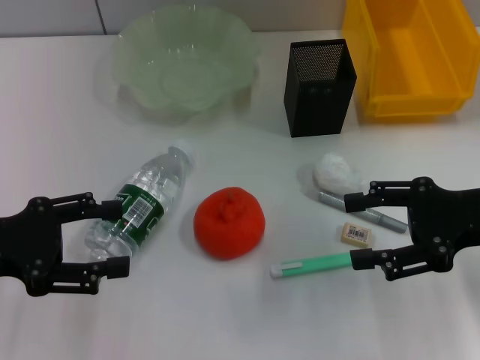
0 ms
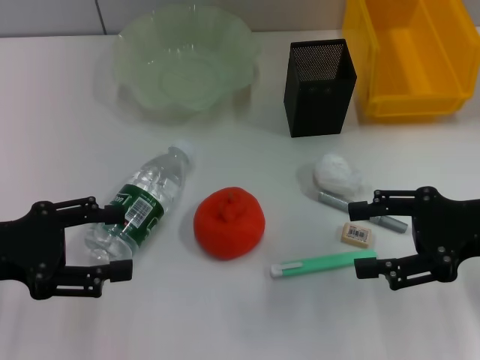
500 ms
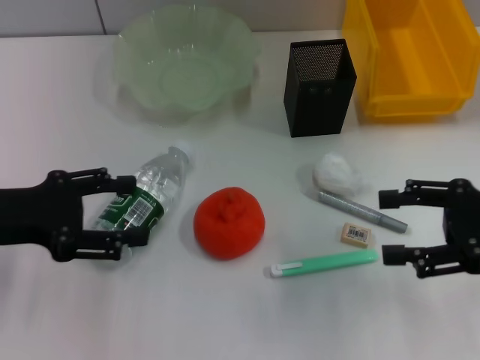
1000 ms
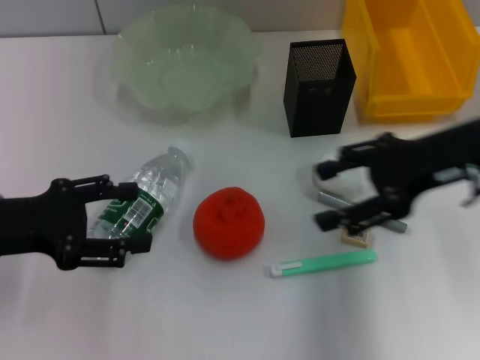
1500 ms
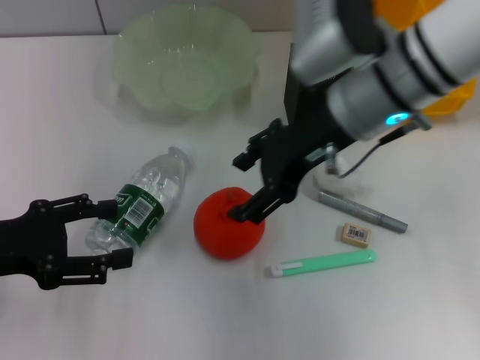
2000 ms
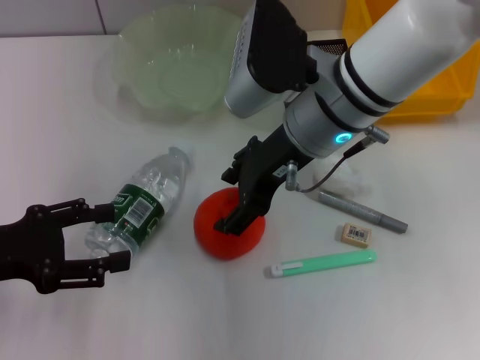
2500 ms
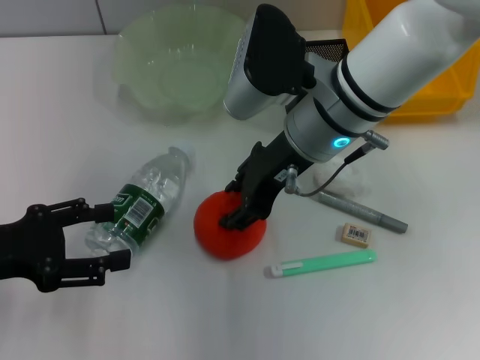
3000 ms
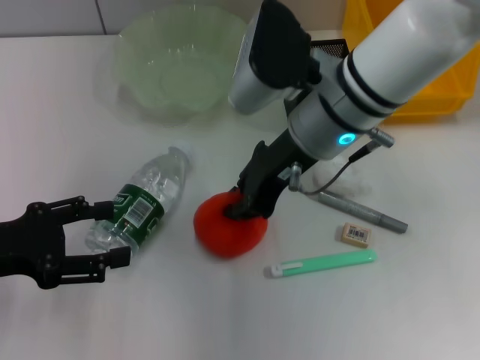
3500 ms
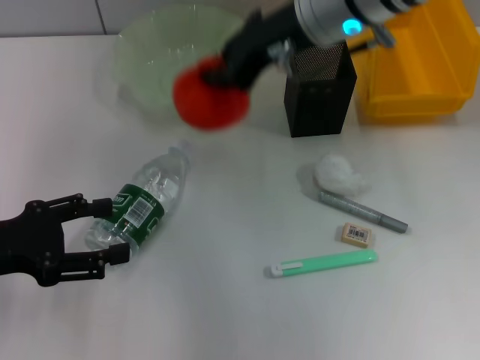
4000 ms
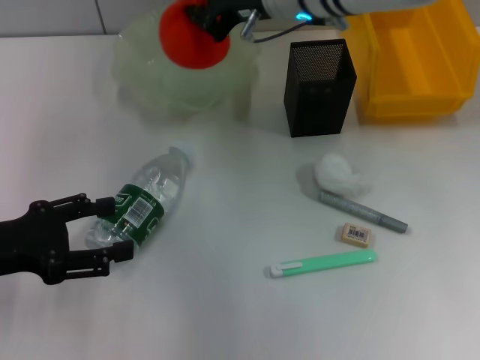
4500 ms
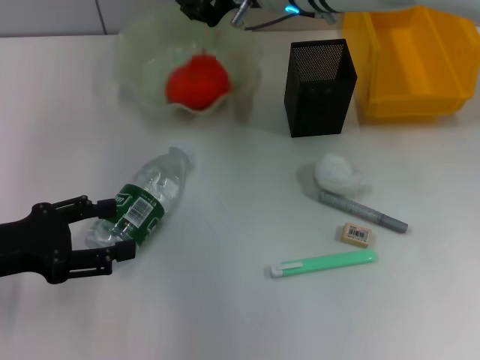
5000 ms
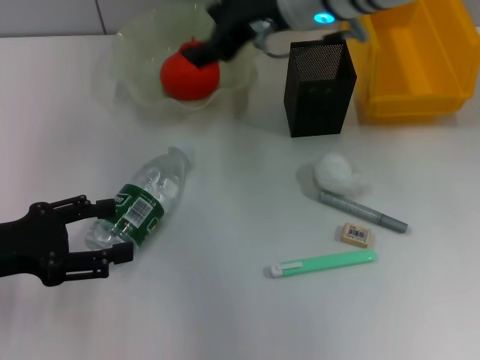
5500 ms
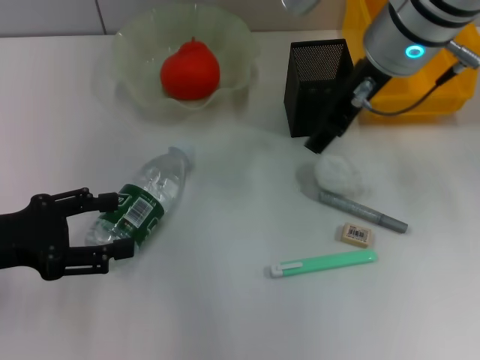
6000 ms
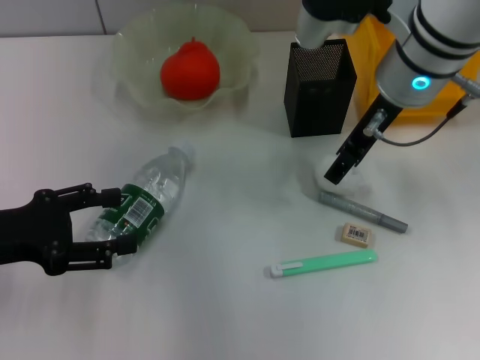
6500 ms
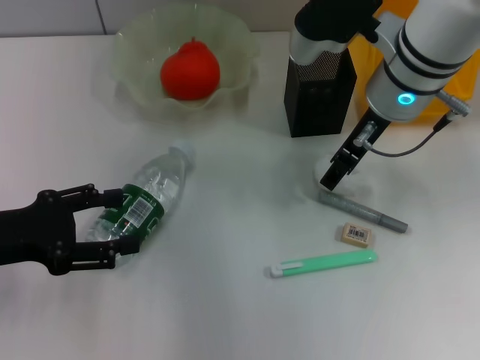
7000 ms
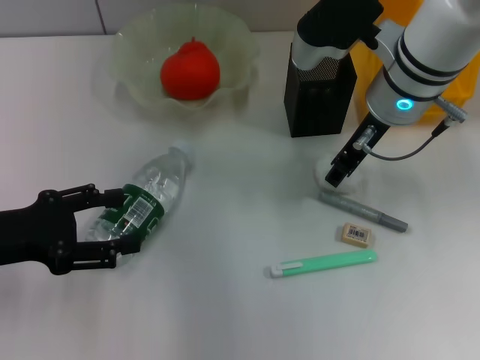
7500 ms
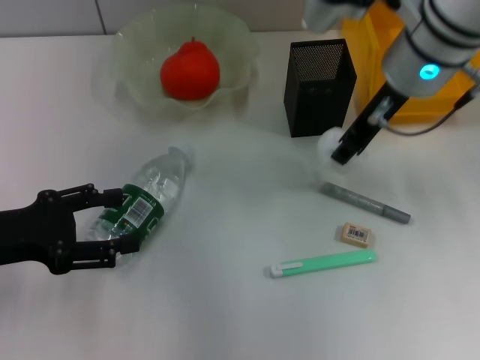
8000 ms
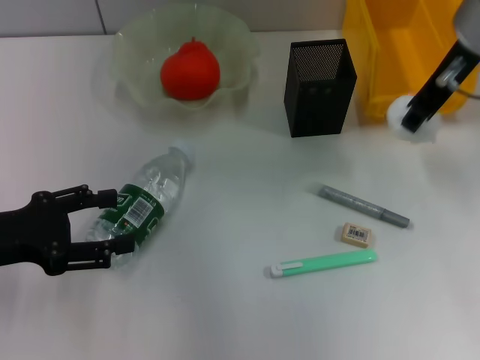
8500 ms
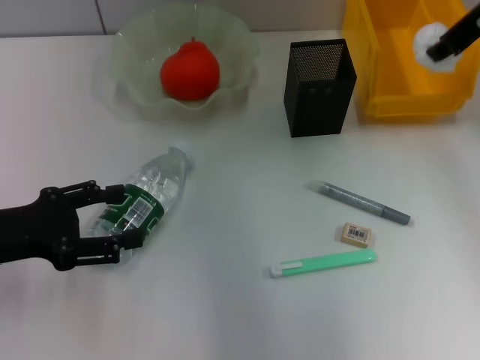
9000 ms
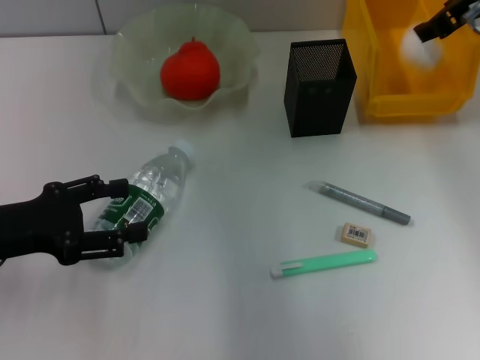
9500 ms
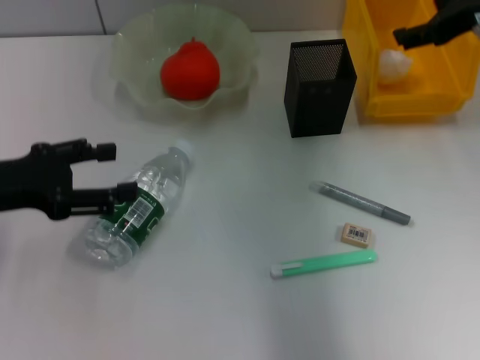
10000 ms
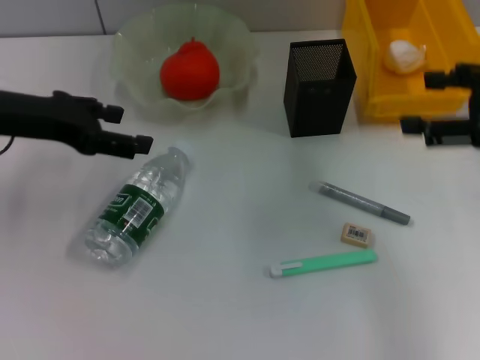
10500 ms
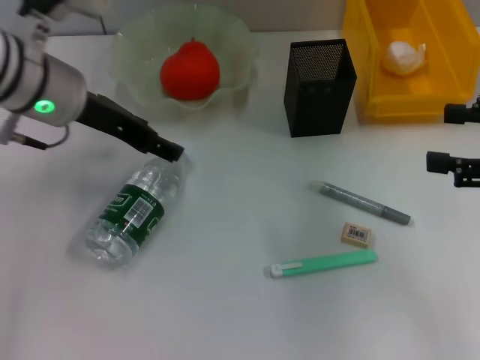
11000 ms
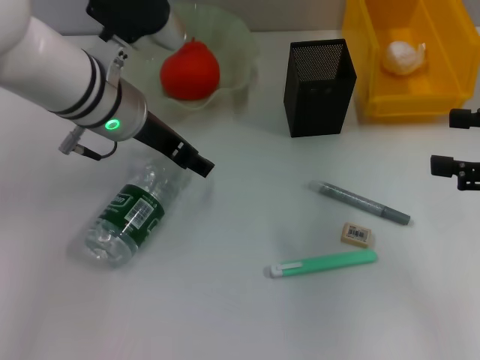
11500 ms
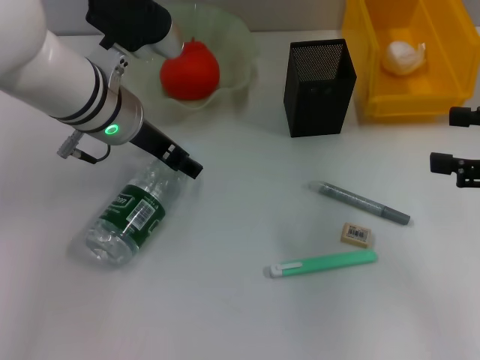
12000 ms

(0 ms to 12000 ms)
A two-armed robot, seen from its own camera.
Step, 0 ms - 3000 ms: Grab the orange with the right hand.
Step, 3500 ms - 5000 ms: Place the orange into the fruit bowl with the right hand.
Step, 5500 ms - 7500 ms: Grab the paper ball with the right hand.
Step, 8000 ms - 9500 ms: Place the paper ball into the trash can with the right hand.
0 ms - 2000 ms: The right gripper travels to the left and forward by approximately 20 cm.
2000 ms - 4000 ms: The right gripper travels forward by approximately 5 cm, and closes.
4000 ms - 6000 ms: The right gripper opens.
6000 ms - 8000 ms: The right gripper closes its fingers.
8000 ms - 10000 ms: The right gripper shifts roughly 10 cm to the right, and opens up.
10000 ms - 12000 ms: The left gripper heads to the right and forward, covering about 20 cm, while the right gripper is displaced backward, to the right and downward by some 15 cm.

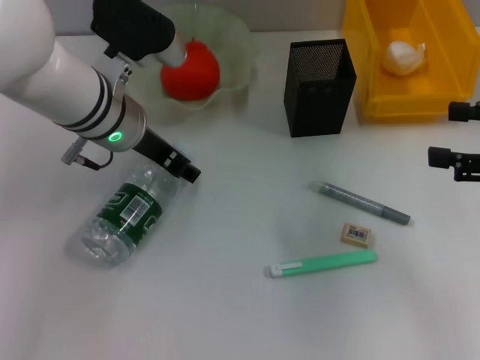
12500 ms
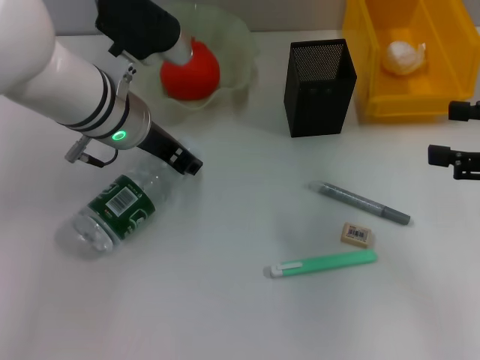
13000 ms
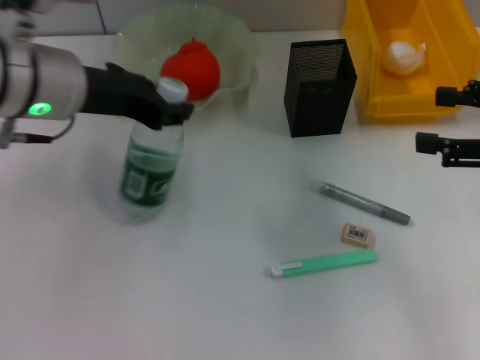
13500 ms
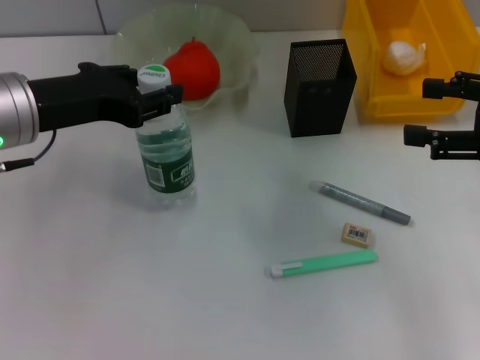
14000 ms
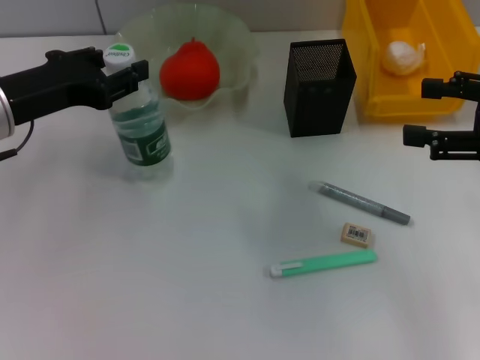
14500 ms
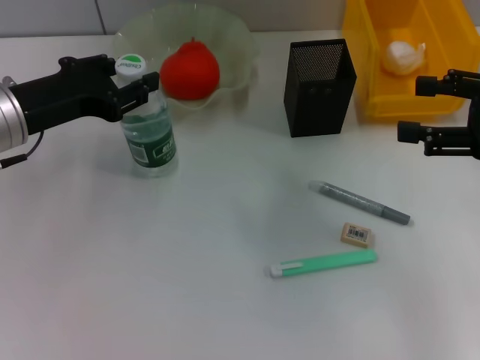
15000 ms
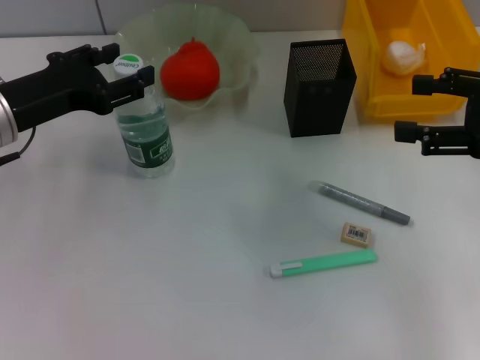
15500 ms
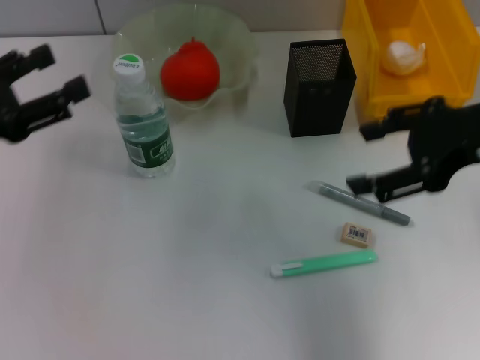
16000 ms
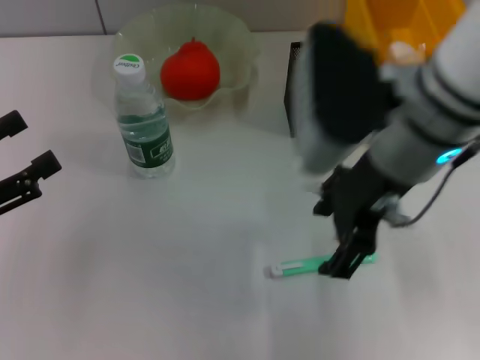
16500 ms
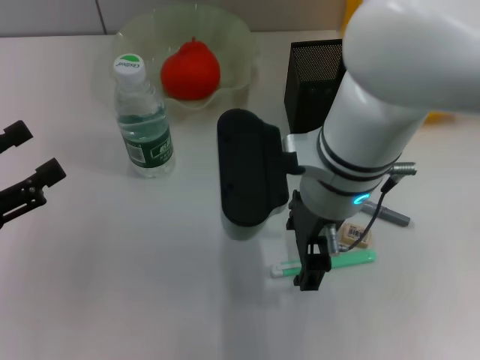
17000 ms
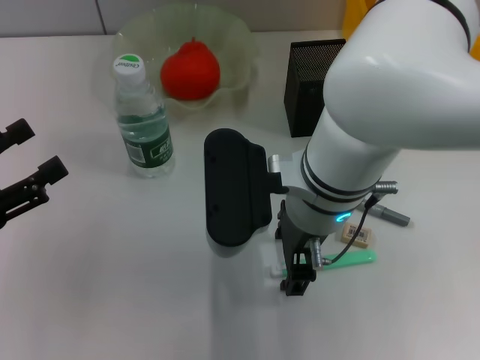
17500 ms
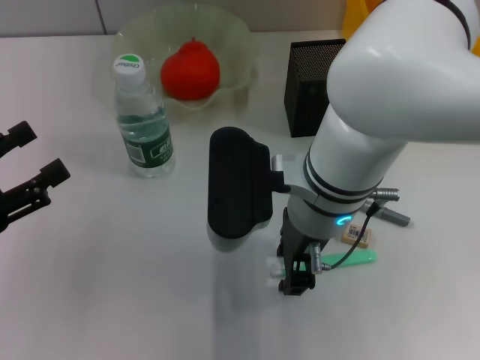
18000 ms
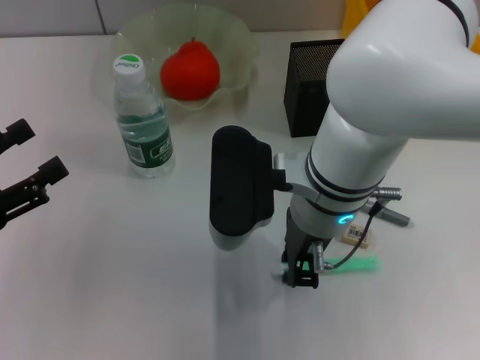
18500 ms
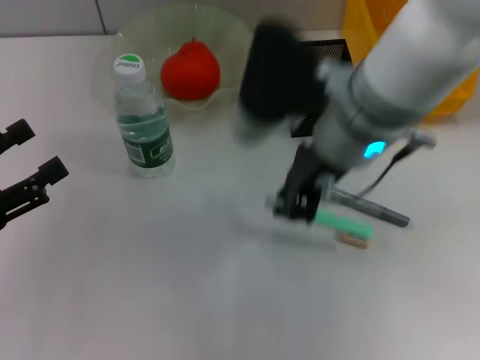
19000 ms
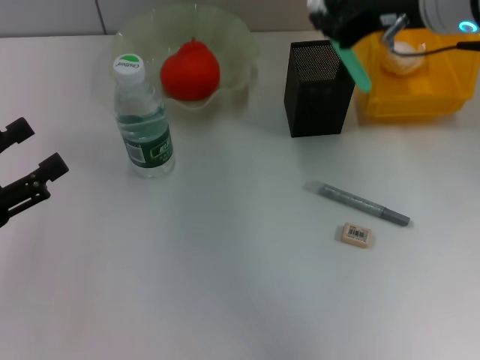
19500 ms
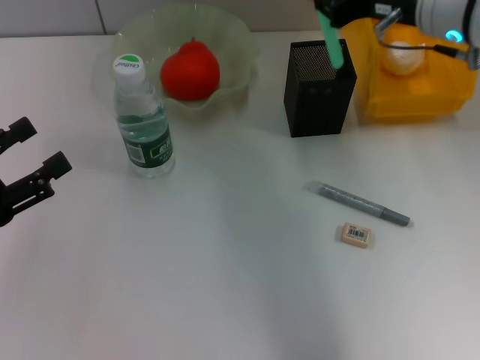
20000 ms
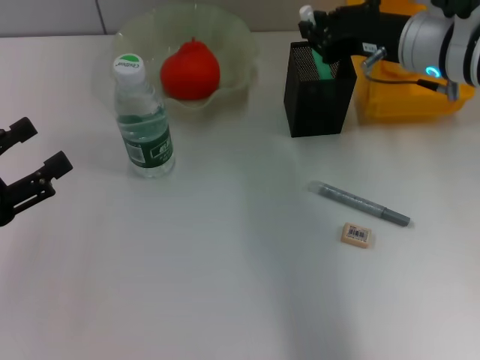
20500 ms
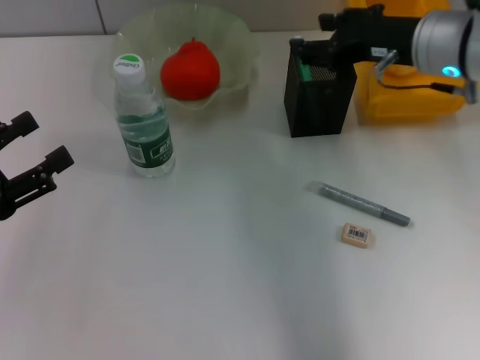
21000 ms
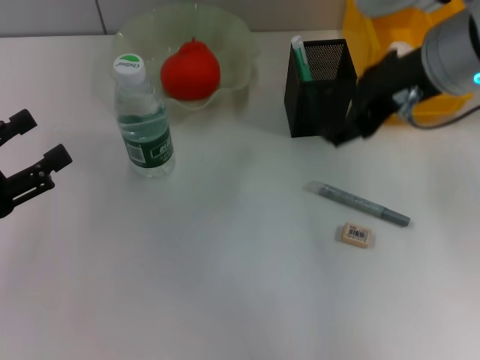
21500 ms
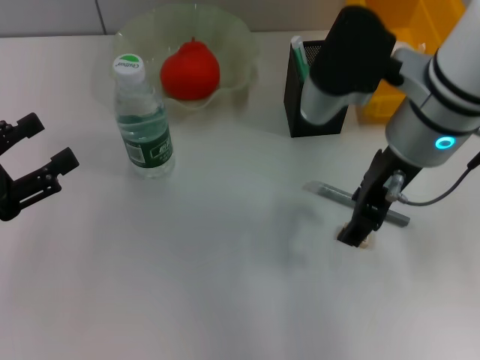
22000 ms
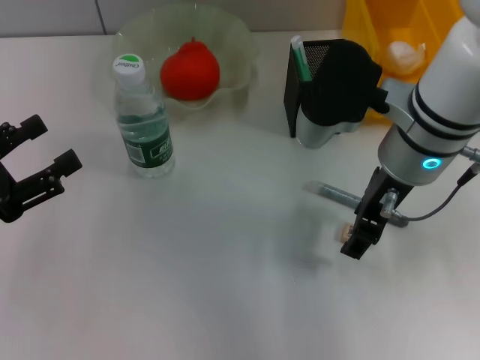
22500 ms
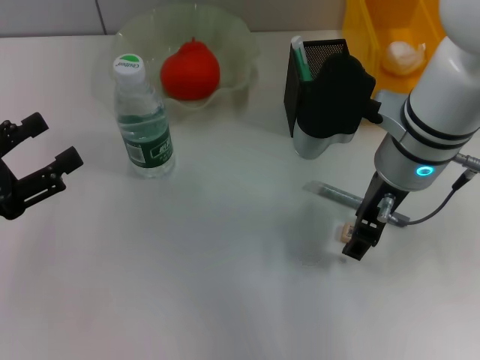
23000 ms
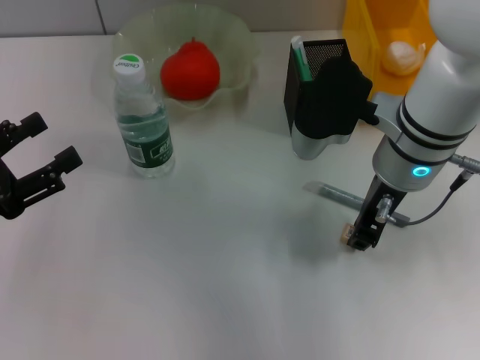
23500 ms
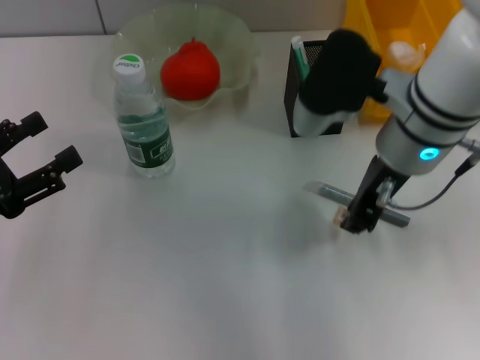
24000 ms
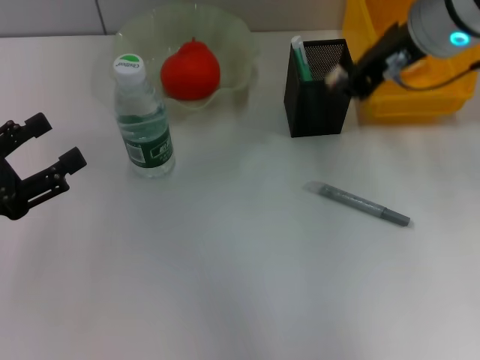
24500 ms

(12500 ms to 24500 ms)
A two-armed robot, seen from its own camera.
Step, 13000 ms - 15500 ms: Place the water bottle on the table with the left hand.
Step, 16000 ms - 18500 ms: Grab the blue utility knife with the right hand.
Step, 19000 ms - 21000 ms: Place the blue utility knife into the pen holder with the right hand.
Step, 21500 ms - 23000 ms: Grab the eraser with the right hand.
12500 ms - 14500 ms: The left gripper heads to the left and backward, covering some 15 cm, and closes up.
14500 ms - 16500 ms: The right gripper heads to the left, covering approximately 20 cm. Meanwhile the left gripper moves backward and to the left, approximately 15 cm, and opens its fingers.
16500 ms - 18500 ms: The right gripper goes some 10 cm downward and to the left, and closes up.
18500 ms - 20500 ms: The right gripper heads to the right and forward, covering roughly 15 cm.
20500 ms - 22500 ms: The right gripper goes roughly 10 cm backward and to the left, moves approximately 10 cm upward and comes back, and opens.
22500 ms - 24500 ms: The right gripper goes about 10 cm upward, and closes.

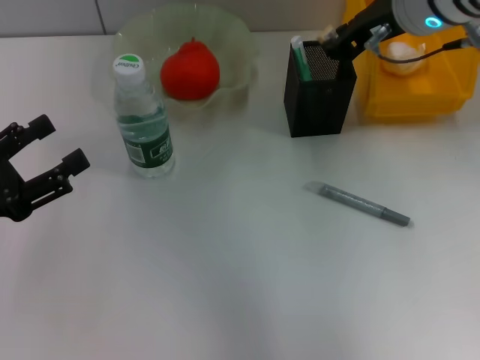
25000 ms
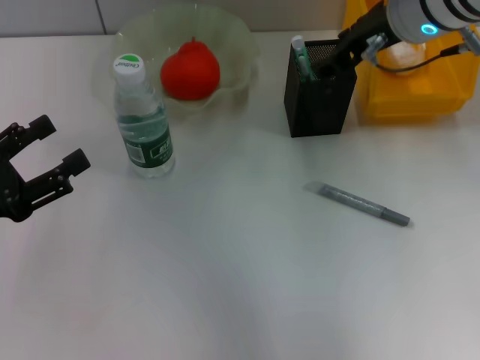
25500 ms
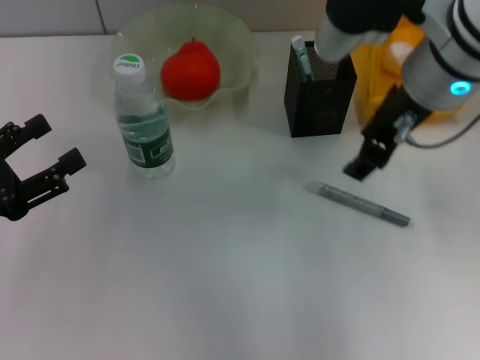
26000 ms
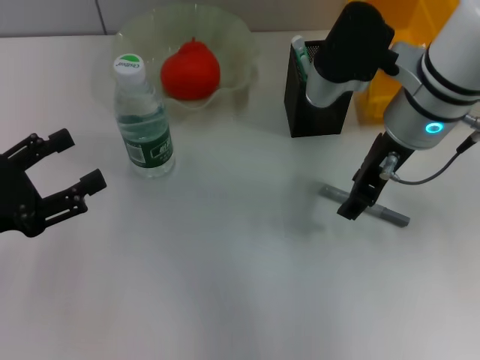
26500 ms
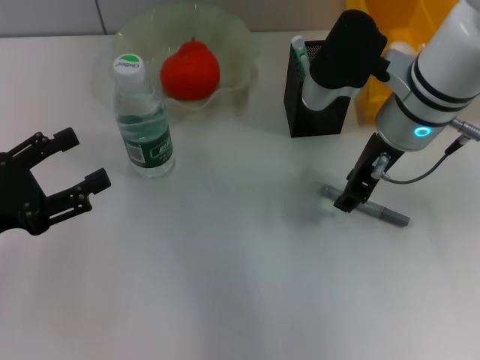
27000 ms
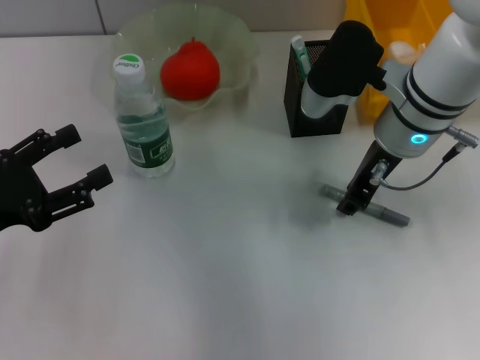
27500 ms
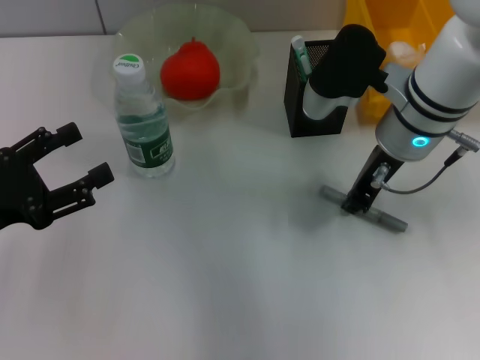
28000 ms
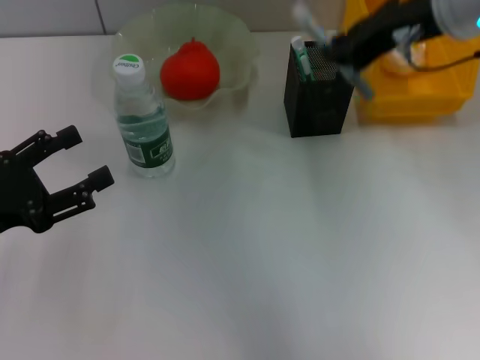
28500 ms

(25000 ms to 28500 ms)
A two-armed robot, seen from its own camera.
Step, 26000 ms - 27500 ms: Grab the gray spring-action pen with the right hand.
25000 ms - 27000 ms: The right gripper heads downward, covering about 5 cm, and opens up.
27000 ms - 28500 ms: The right gripper shifts about 10 cm upward, and closes its fingers.
